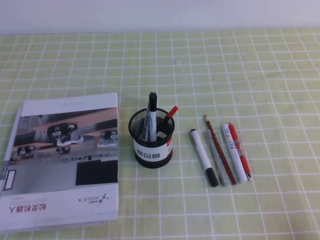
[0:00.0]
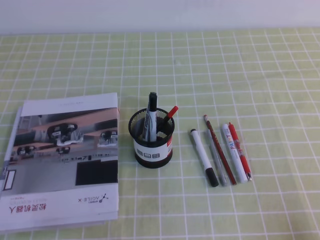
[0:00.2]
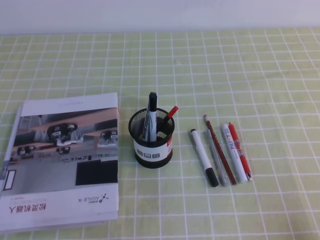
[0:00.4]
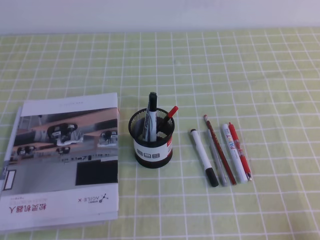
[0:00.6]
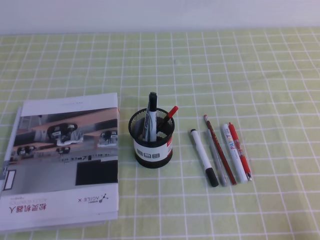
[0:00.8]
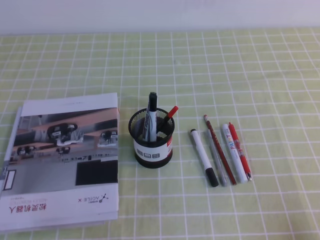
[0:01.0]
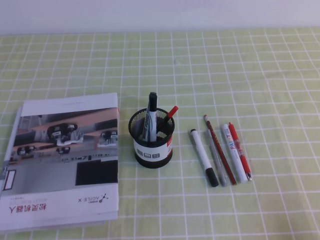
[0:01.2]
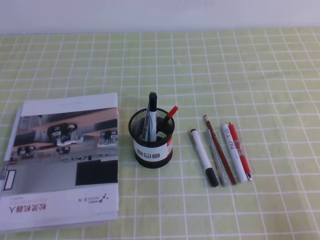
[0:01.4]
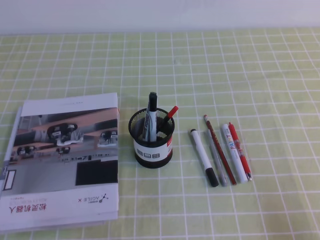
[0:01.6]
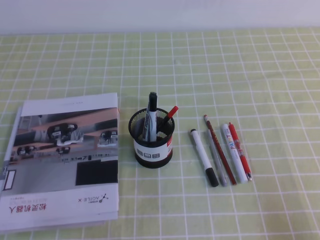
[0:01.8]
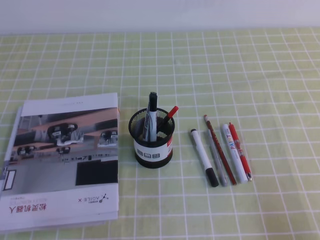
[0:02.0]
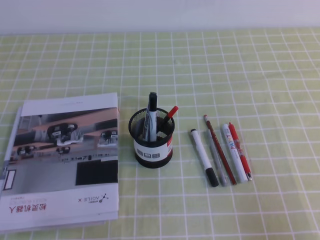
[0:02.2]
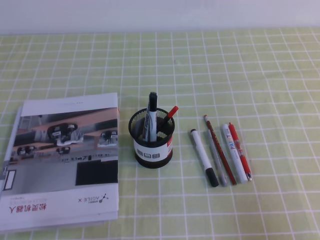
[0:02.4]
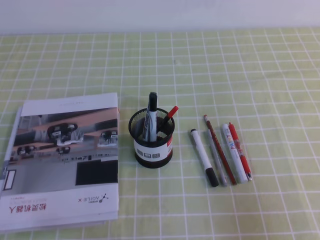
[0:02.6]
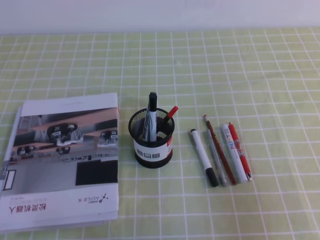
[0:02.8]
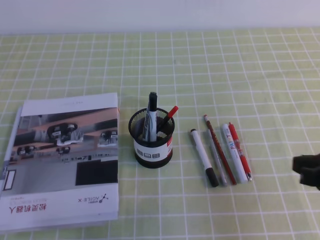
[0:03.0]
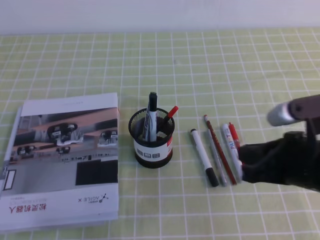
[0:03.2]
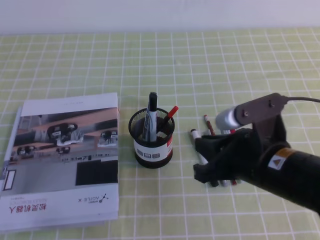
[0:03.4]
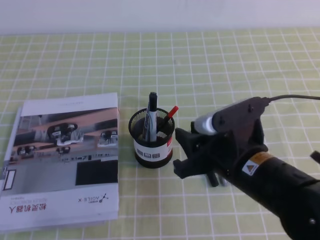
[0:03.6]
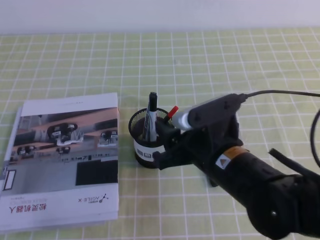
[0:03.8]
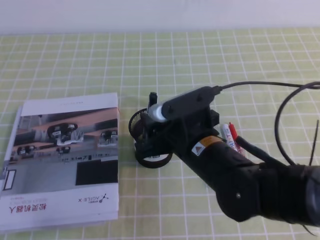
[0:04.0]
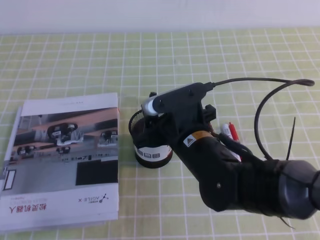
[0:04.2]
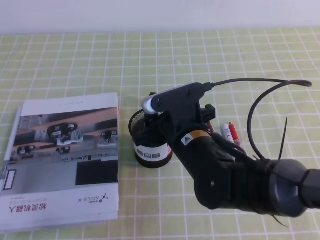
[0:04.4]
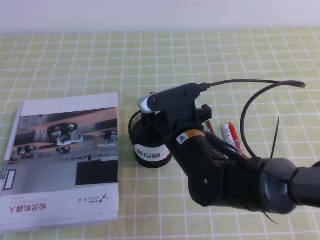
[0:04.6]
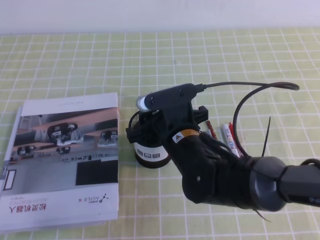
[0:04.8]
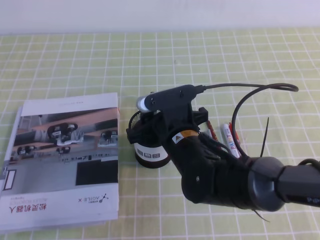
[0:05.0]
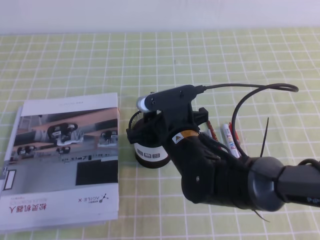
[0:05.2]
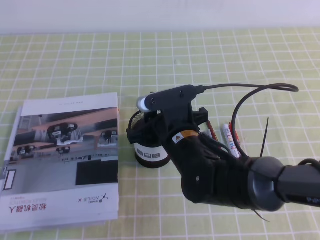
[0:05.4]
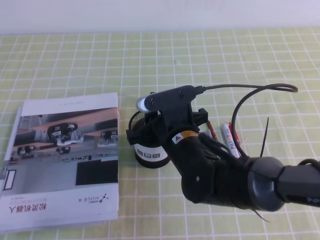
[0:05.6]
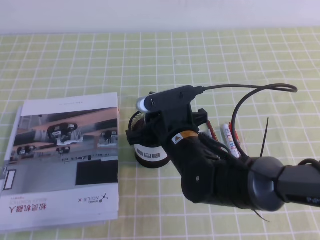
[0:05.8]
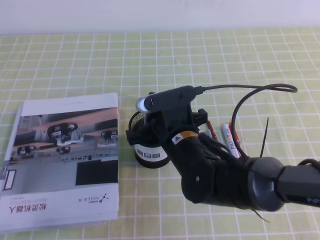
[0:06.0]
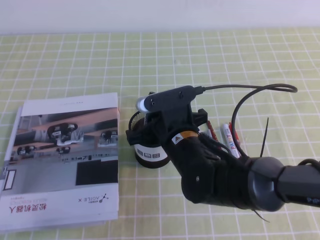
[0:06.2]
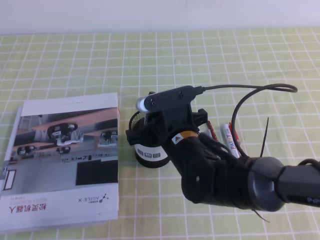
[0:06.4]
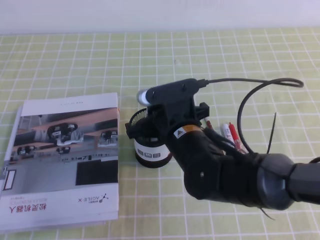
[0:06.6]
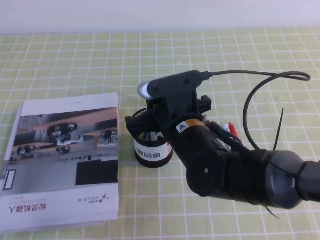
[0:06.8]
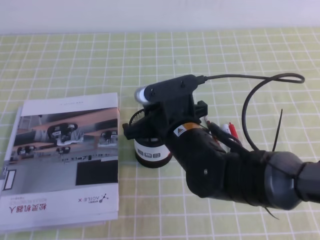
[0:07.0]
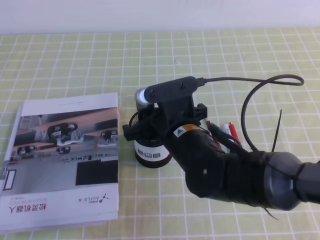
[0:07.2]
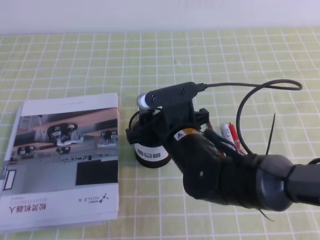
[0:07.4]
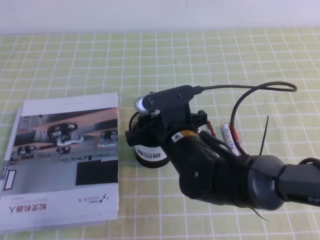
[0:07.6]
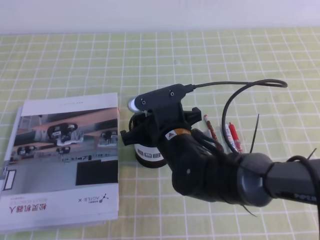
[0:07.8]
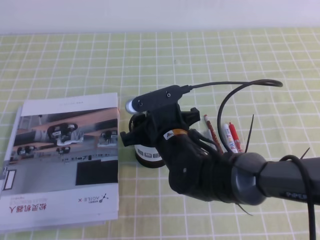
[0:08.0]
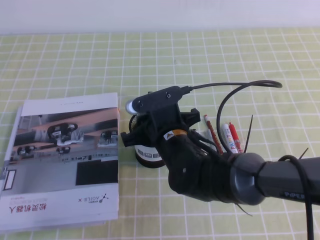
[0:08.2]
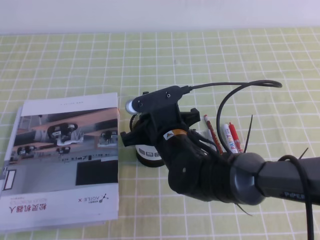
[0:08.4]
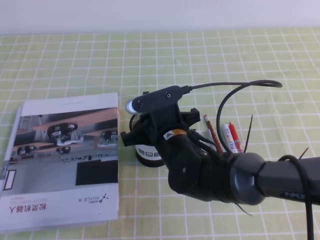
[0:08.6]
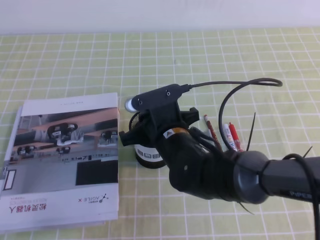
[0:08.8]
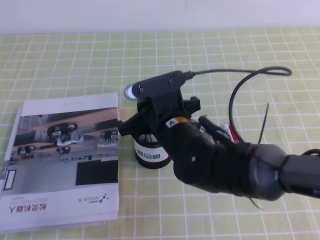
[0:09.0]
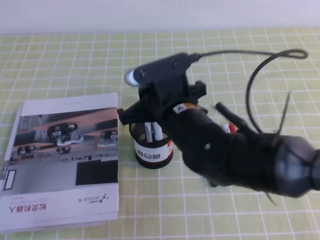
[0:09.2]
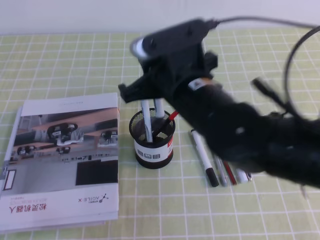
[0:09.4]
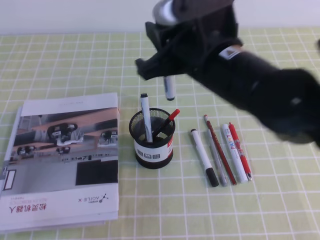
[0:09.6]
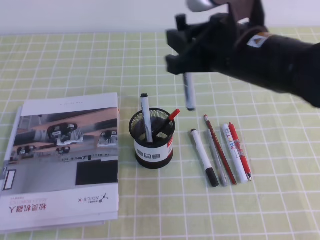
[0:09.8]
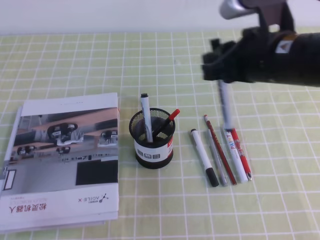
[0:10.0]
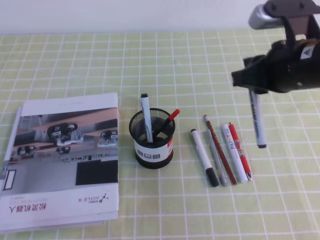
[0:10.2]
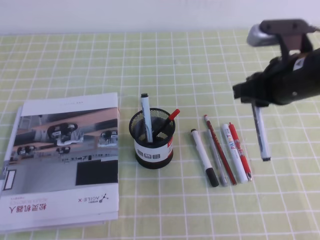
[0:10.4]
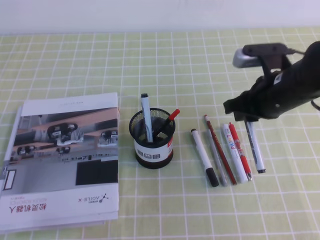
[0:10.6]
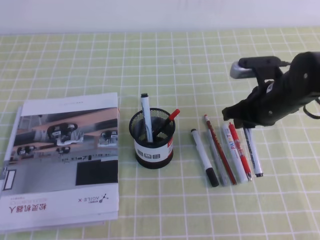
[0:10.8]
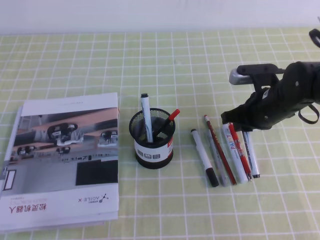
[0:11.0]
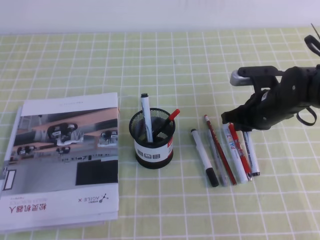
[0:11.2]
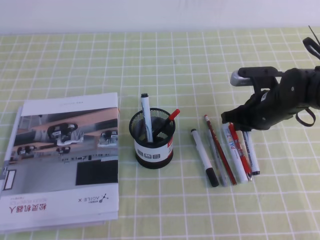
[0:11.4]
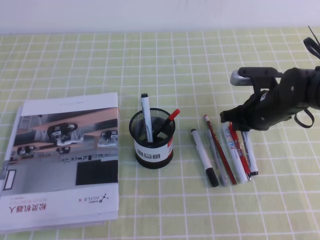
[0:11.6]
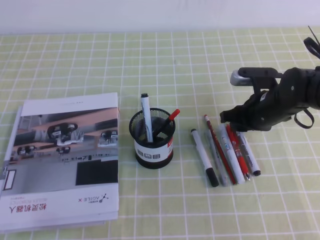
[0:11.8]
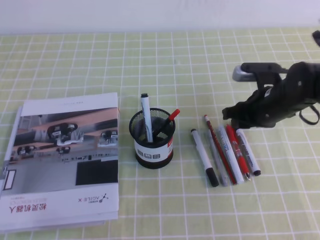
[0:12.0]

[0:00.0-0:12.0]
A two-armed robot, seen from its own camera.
0:01.6 to 0:03.0: The right gripper shifts approximately 15 cm forward, upward and to the left.
0:03.0 to 0:04.4: The right gripper is displaced to the left and forward by about 25 cm, and opens up.
0:04.4 to 0:06.0: The right gripper closes up.
0:06.0 to 0:07.6: The right gripper opens up.
0:07.6 to 0:09.0: The right gripper closes its fingers.
0:09.0 to 0:10.4: The right gripper shifts roughly 20 cm to the right.
0:10.4 to 0:12.0: The right gripper shifts about 10 cm downward and forward.

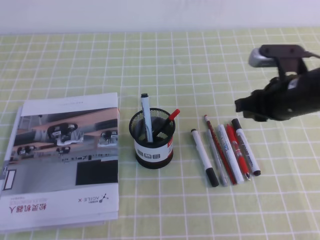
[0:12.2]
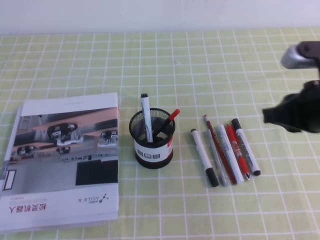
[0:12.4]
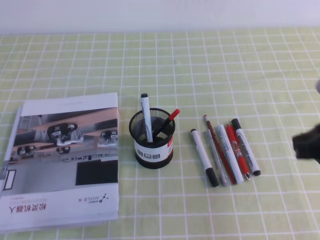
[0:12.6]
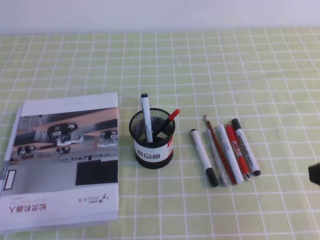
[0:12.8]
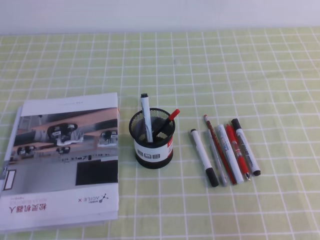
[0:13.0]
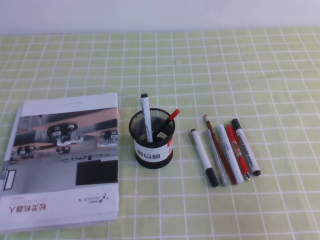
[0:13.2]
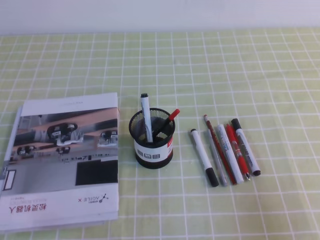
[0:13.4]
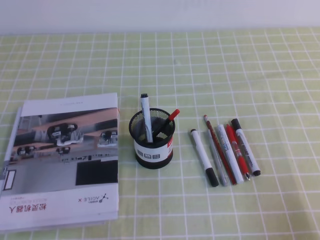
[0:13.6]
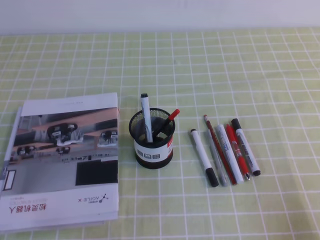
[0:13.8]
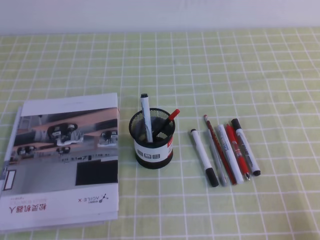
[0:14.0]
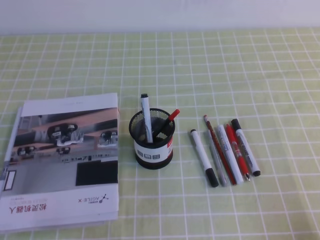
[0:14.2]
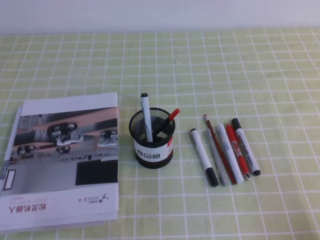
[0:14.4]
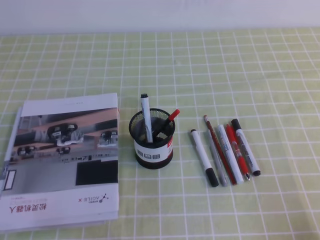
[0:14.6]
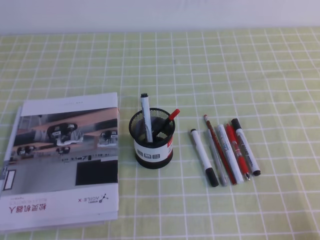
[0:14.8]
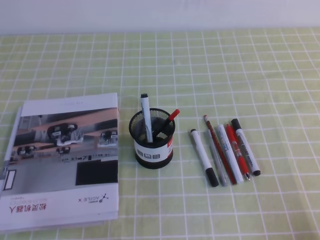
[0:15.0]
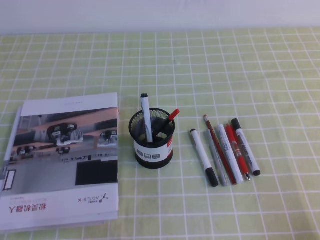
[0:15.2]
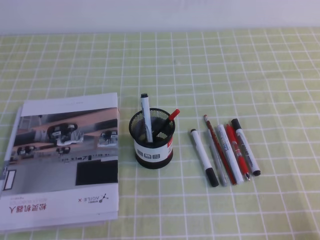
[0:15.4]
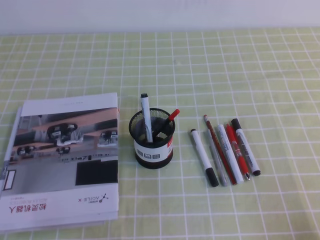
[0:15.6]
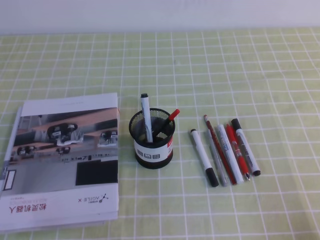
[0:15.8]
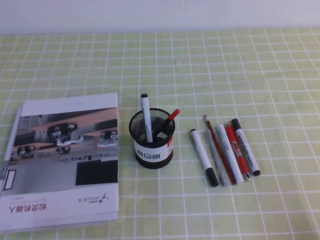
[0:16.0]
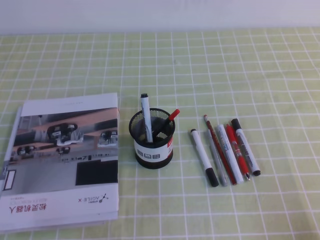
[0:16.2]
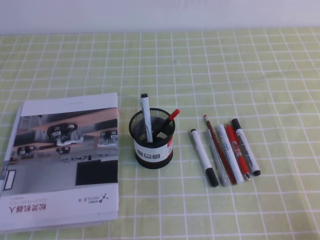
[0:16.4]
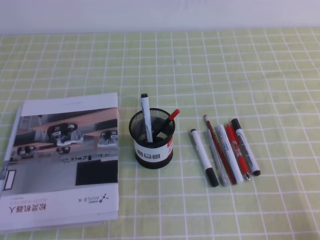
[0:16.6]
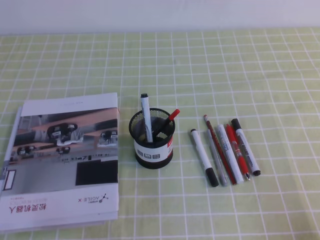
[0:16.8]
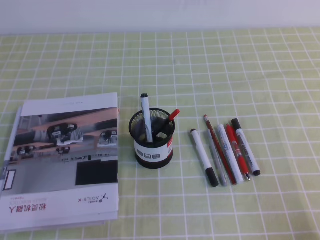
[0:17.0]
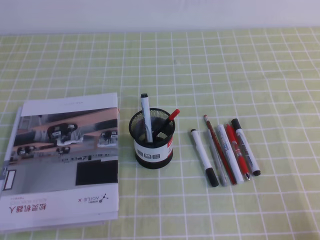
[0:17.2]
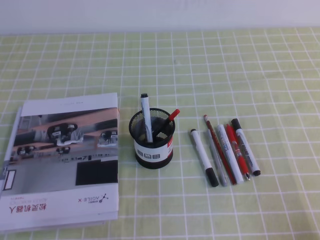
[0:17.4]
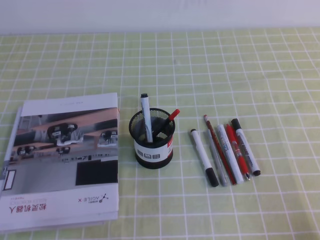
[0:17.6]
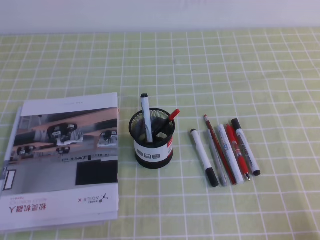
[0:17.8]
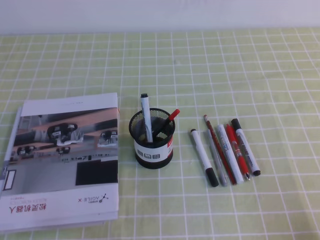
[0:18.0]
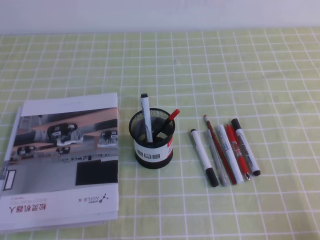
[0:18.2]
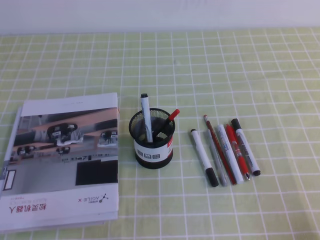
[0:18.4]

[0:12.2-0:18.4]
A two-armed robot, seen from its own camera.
Step, 0:12.2 to 0:18.4: Pick up the pen from the pen holder.
0:12.2 to 0:13.8: The right gripper moves backward and to the right, some 30 cm, and closes its fingers.
0:15.4 to 0:18.4: Neither gripper changes place.
